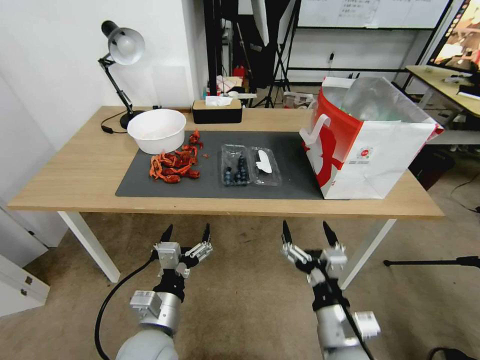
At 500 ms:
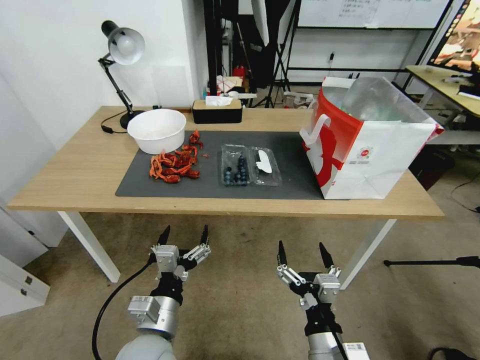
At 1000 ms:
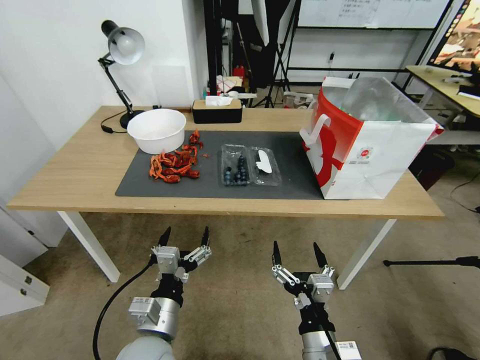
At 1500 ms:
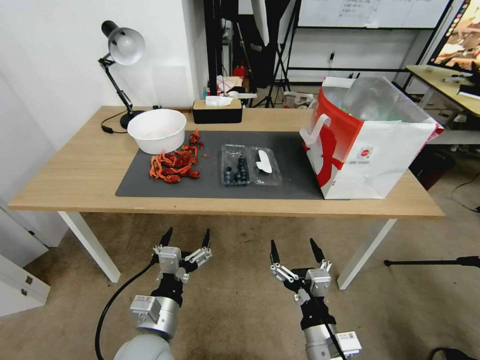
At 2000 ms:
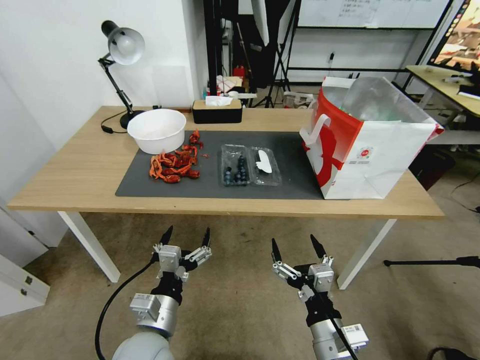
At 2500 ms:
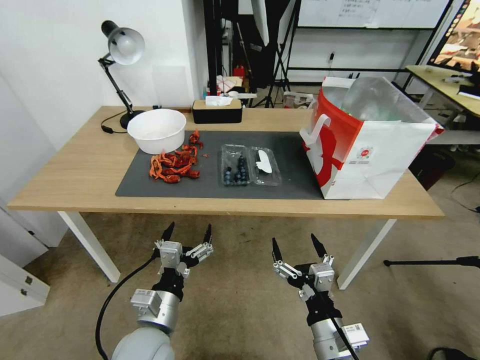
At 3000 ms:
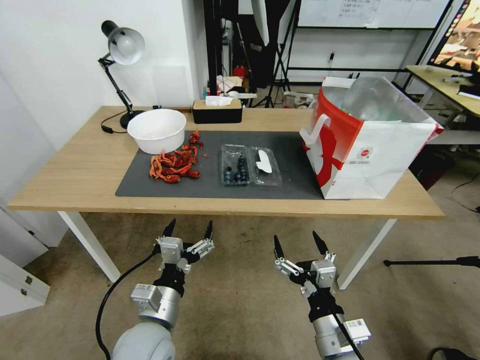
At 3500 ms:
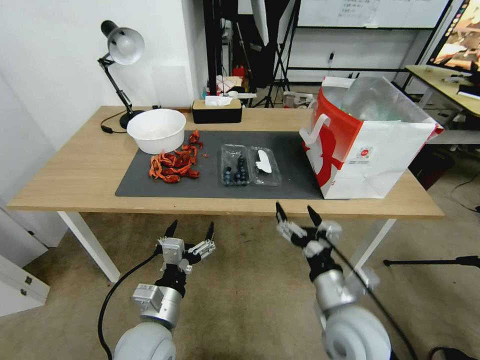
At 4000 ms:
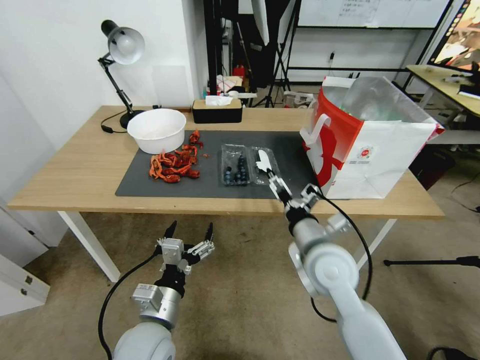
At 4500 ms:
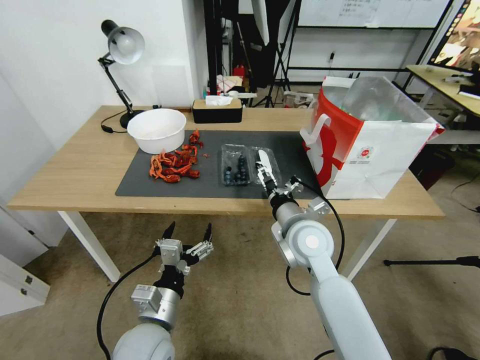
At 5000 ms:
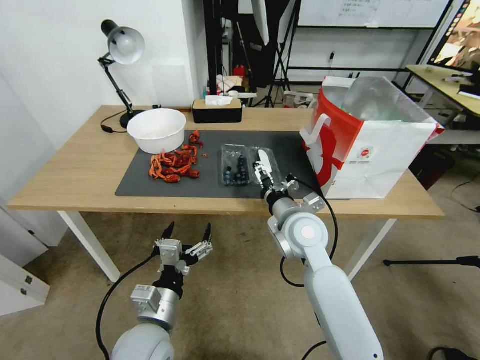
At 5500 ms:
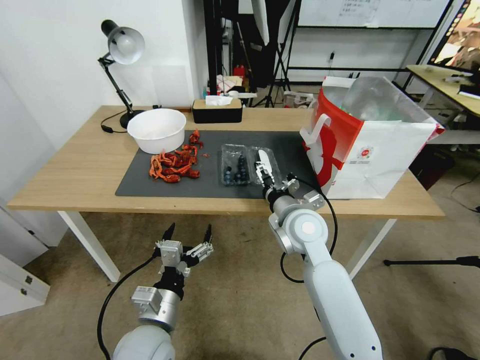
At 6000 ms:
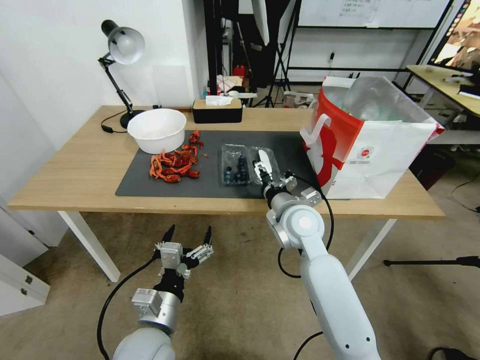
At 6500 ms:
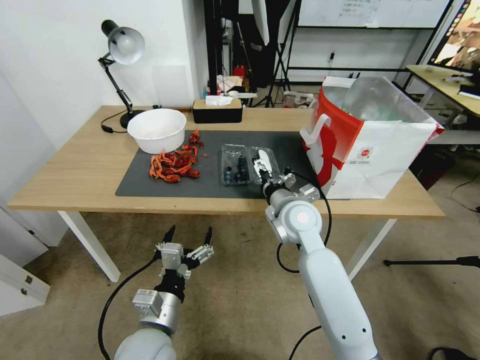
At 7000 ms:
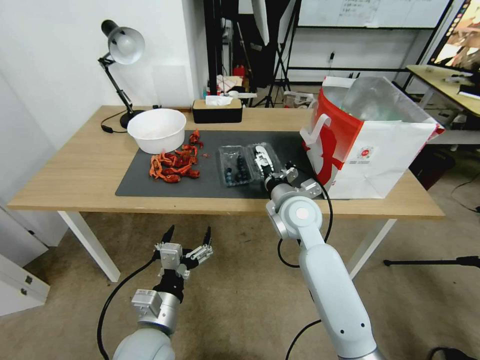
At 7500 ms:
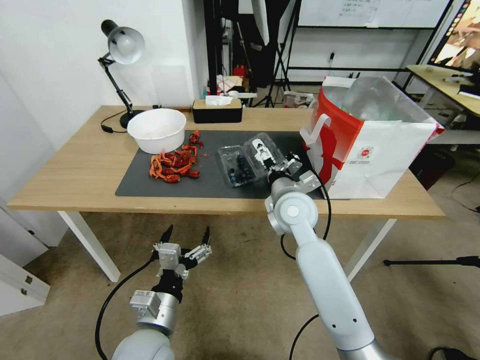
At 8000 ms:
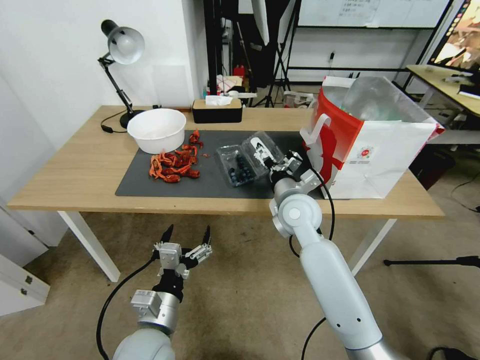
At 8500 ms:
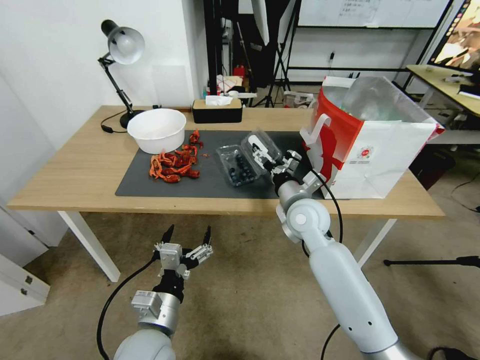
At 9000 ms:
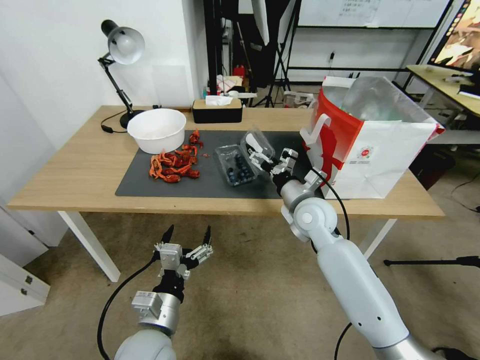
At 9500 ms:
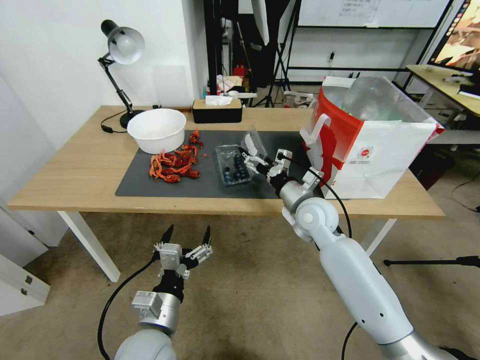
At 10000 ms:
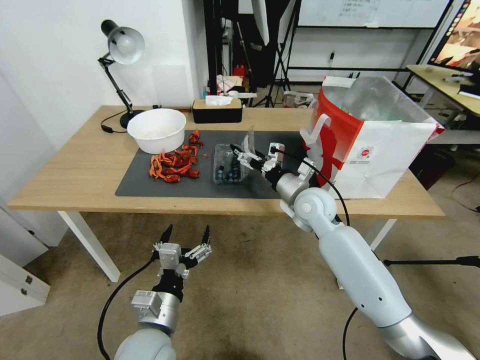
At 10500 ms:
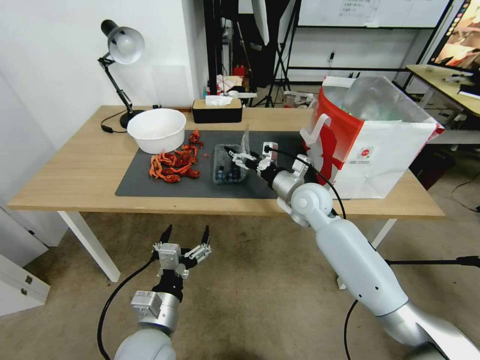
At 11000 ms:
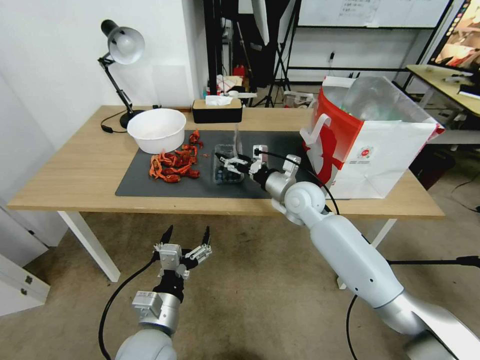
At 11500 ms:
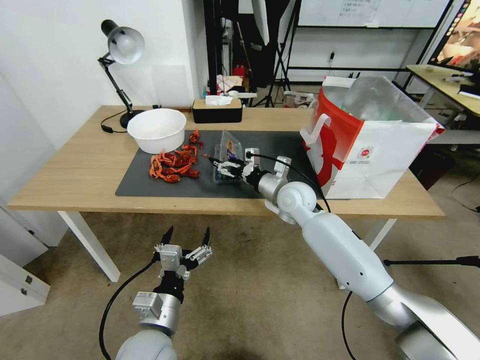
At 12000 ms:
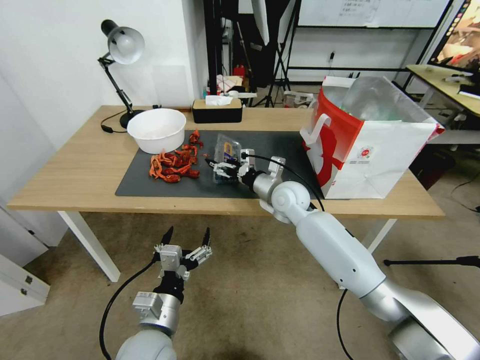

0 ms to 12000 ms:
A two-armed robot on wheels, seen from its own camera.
Task of the whole recording: Close the takeout container lid, then place the container into the takeout bag.
2000 ms to 4000 ms: The right gripper heads forward and upward, covering about 20 cm.
4000 ms to 6000 ms: The right gripper travels forward by roughly 10 cm.
8000 ms to 10000 ms: The right gripper moves approximately 5 cm.
10000 ms to 12000 ms: The right gripper shifts by some 5 cm.

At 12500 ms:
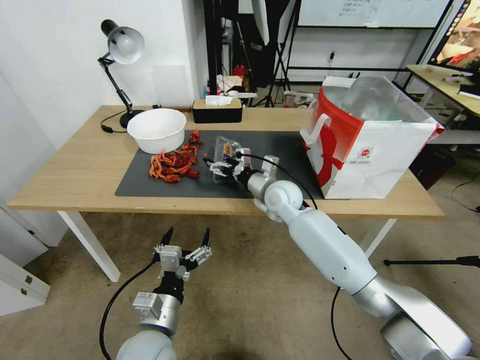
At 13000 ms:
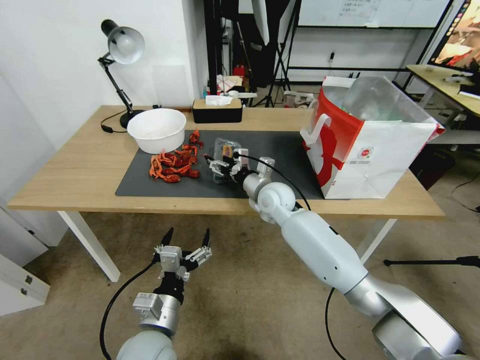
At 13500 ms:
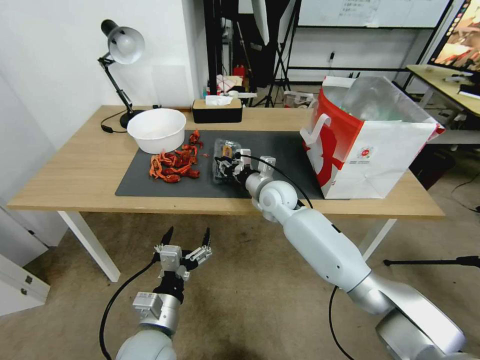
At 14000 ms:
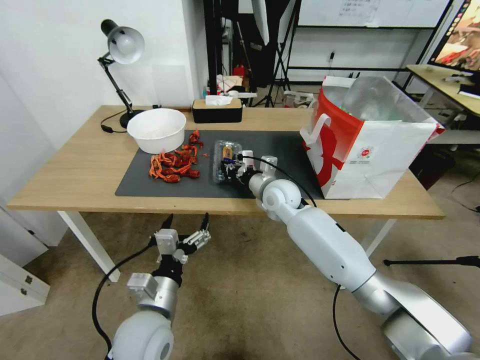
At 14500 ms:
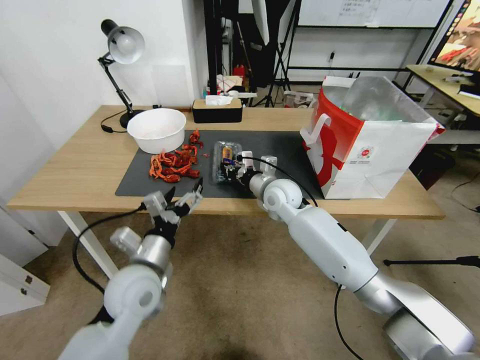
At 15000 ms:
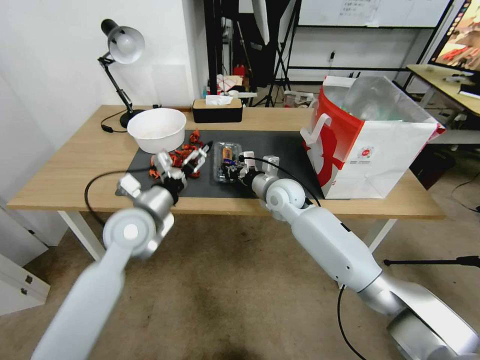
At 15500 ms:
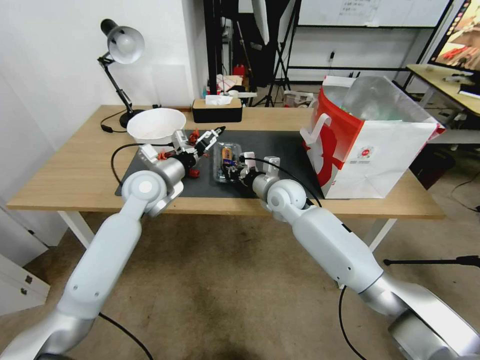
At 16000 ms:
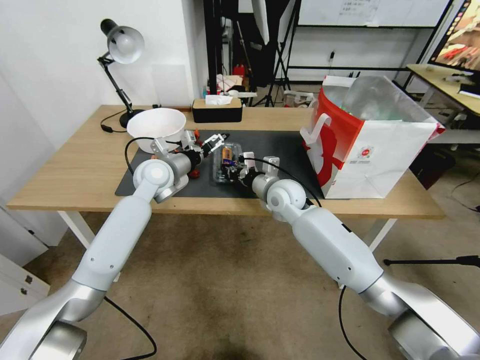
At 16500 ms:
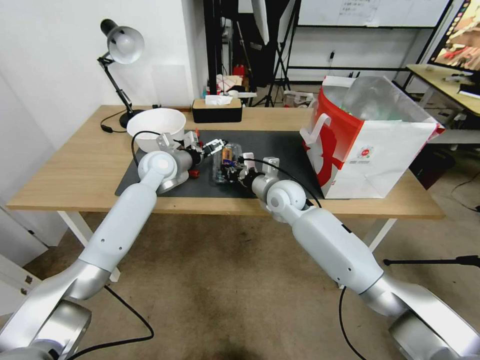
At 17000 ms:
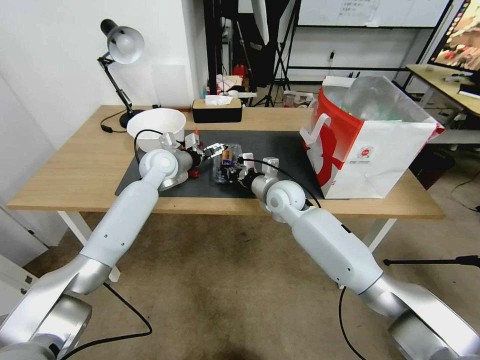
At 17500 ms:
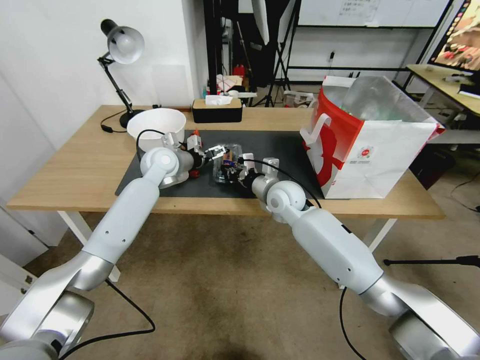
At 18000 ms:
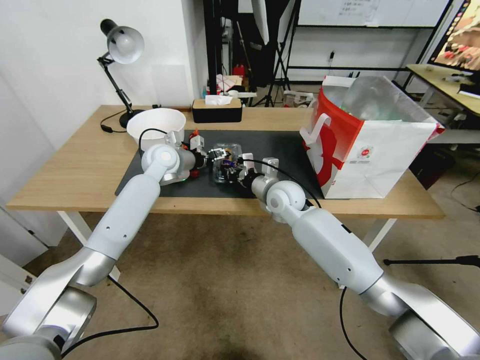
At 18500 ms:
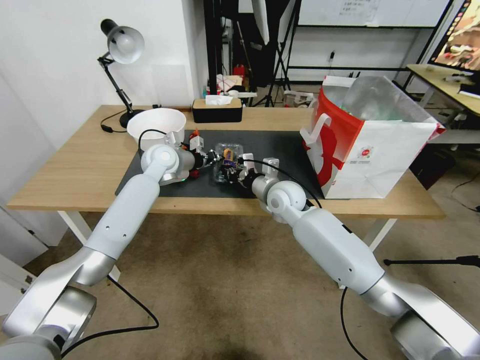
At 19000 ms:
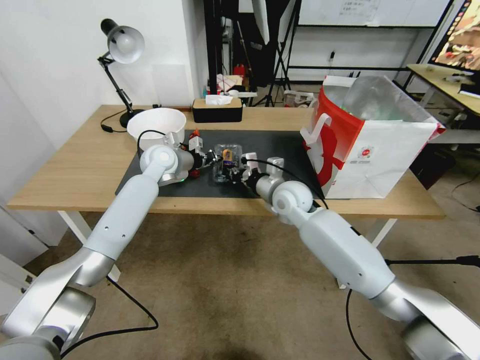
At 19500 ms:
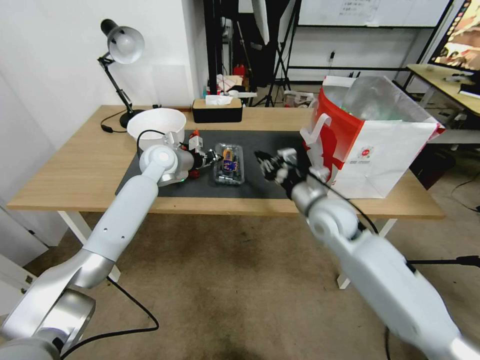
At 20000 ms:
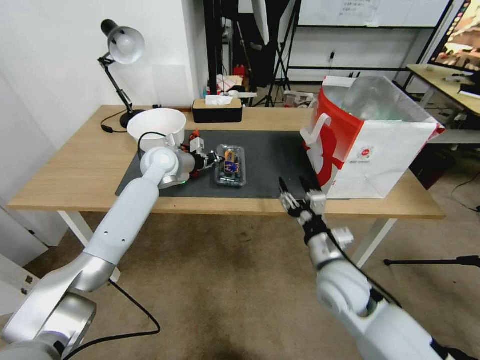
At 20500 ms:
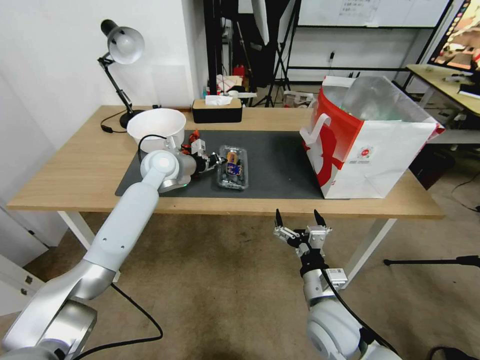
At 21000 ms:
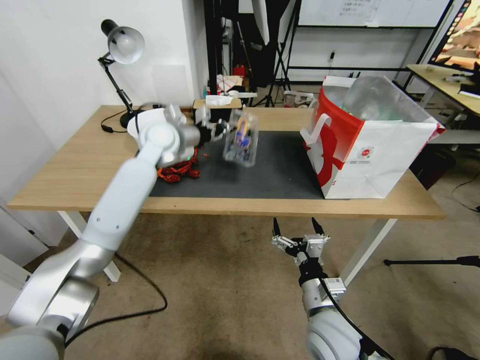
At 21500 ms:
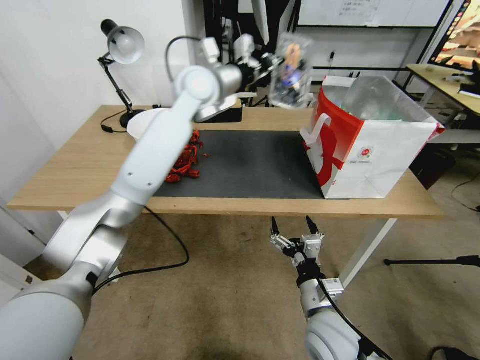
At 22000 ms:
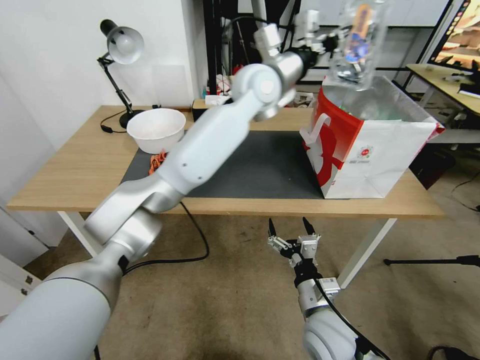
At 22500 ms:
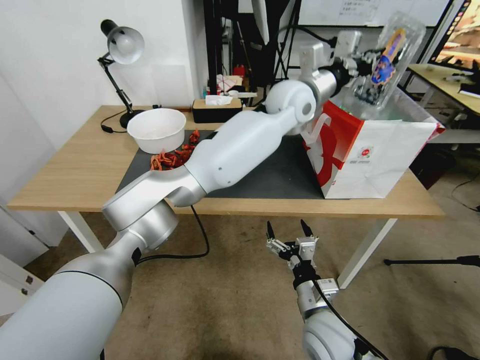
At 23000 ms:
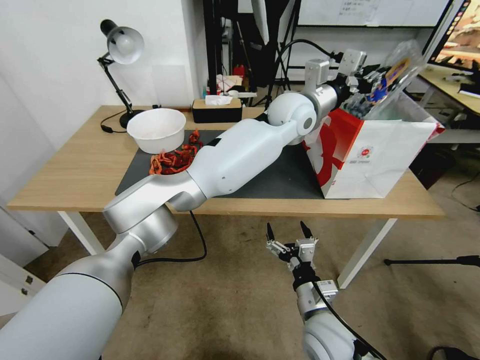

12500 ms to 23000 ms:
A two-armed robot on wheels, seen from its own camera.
Task of the whole recording: Close the takeout container lid, then place the container into the takeout bag.
12500 ms to 14500 ms: The left gripper moves forward and upward, some 10 cm; the right gripper closes up.
14500 ms to 16500 ms: The left gripper shifts approximately 25 cm forward.
16500 ms to 19000 ms: The left gripper closes its fingers.
19000 ms to 21000 ms: The right gripper goes about 25 cm backward, and opens its fingers, while the left gripper heads upward, covering approximately 10 cm.
21000 ms to 23000 ms: The left gripper moves to the right, approximately 30 cm.

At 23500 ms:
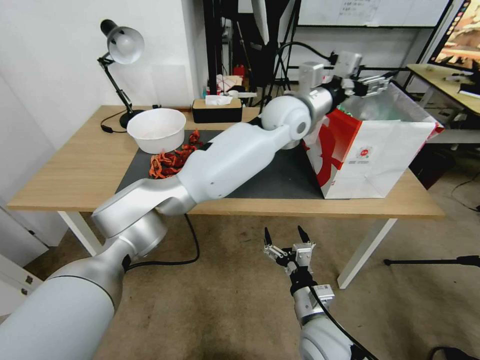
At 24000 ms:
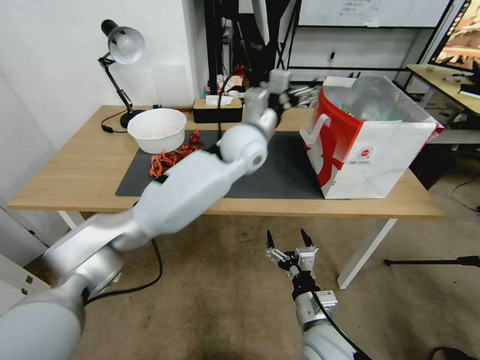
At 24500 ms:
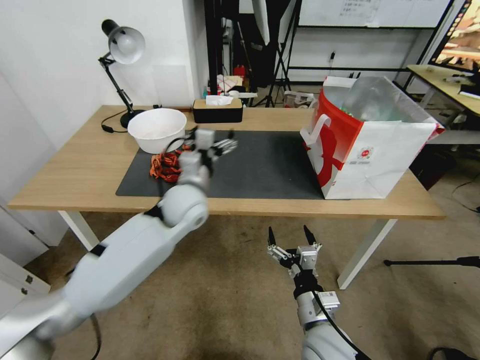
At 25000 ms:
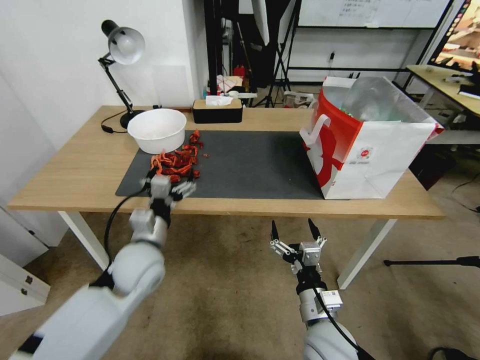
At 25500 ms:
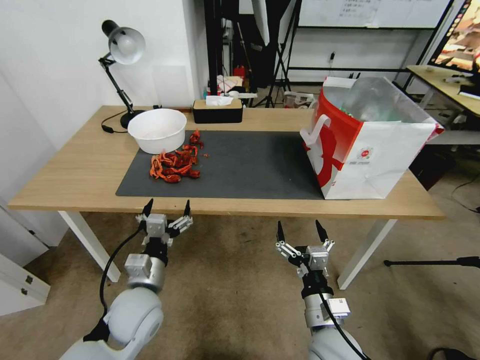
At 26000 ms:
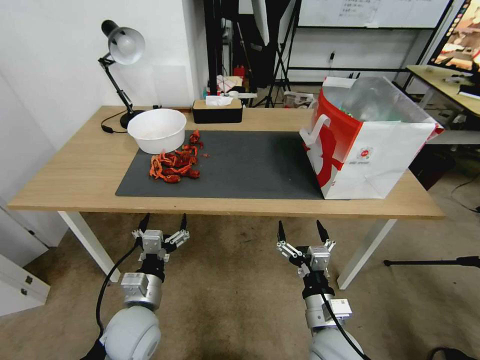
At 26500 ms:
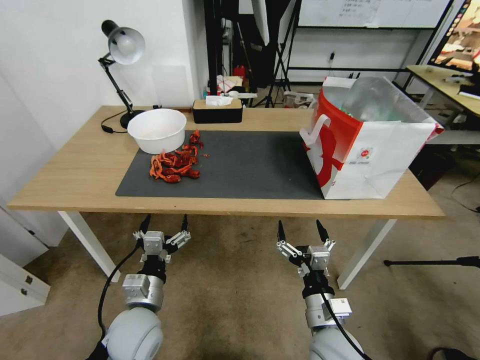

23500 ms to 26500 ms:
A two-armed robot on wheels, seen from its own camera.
Task of the whole recording: Close the takeout container lid, then place the container into the takeout bag.
23500 ms to 25000 ms: The left gripper goes about 40 cm to the left, backward and downward.
25000 ms to 26500 ms: The left gripper moves backward and downward, roughly 10 cm.
